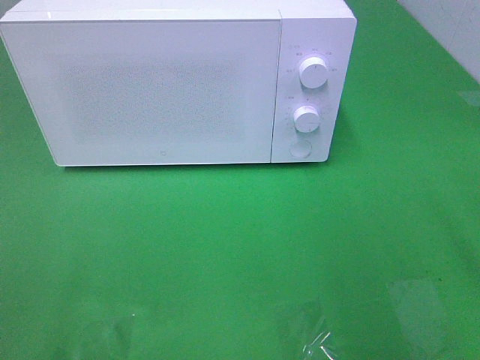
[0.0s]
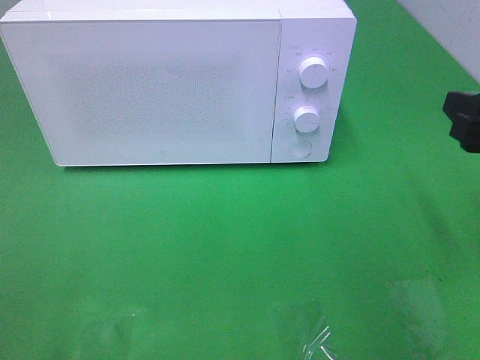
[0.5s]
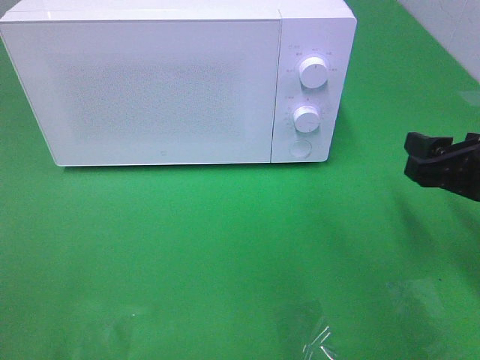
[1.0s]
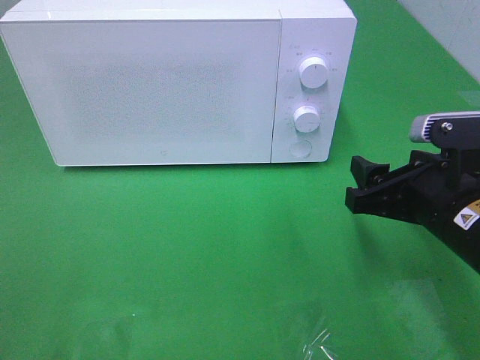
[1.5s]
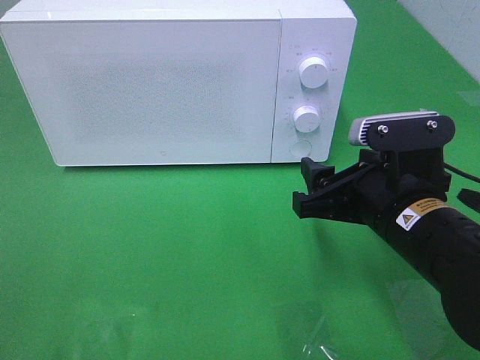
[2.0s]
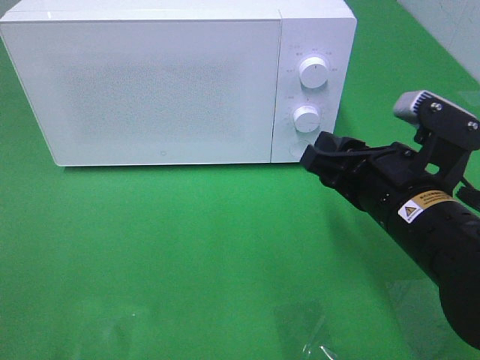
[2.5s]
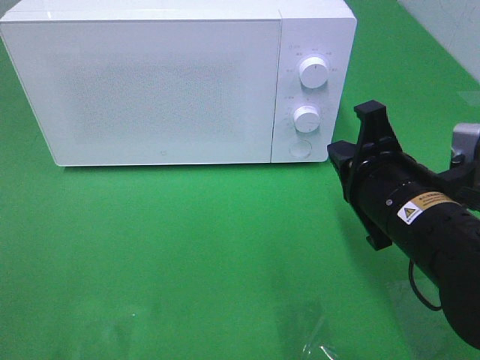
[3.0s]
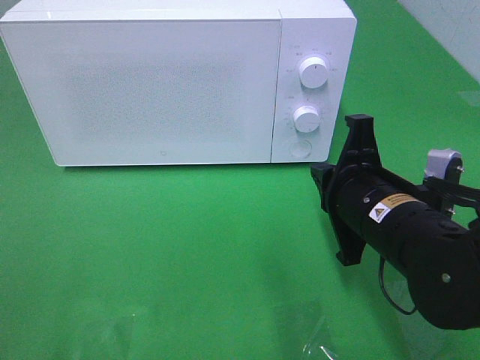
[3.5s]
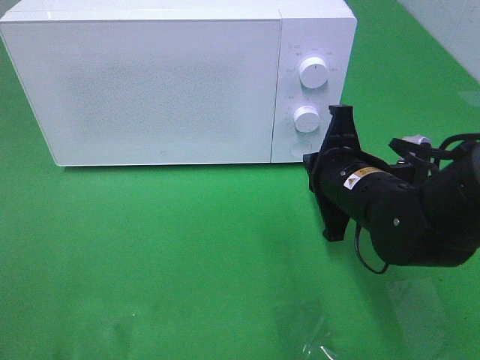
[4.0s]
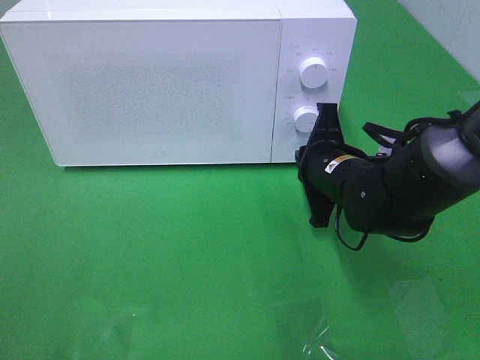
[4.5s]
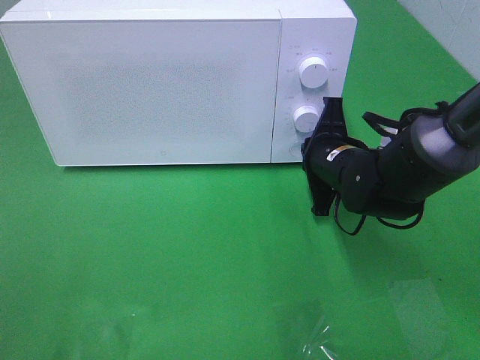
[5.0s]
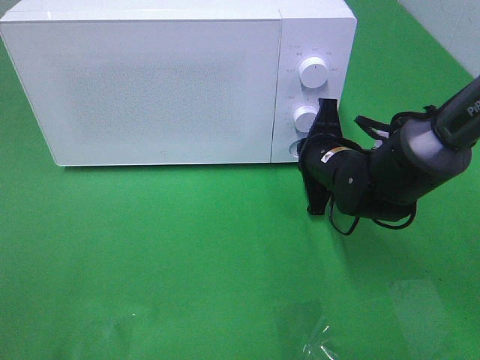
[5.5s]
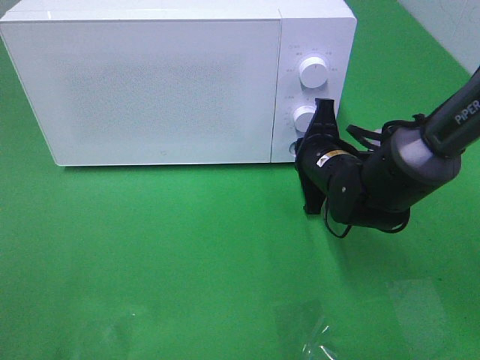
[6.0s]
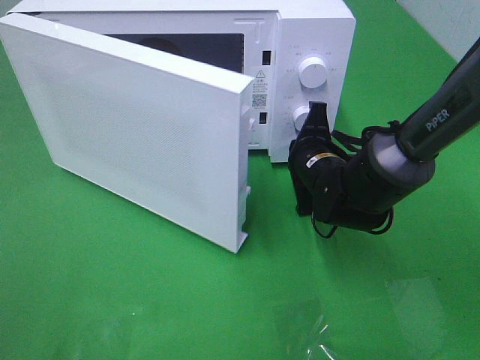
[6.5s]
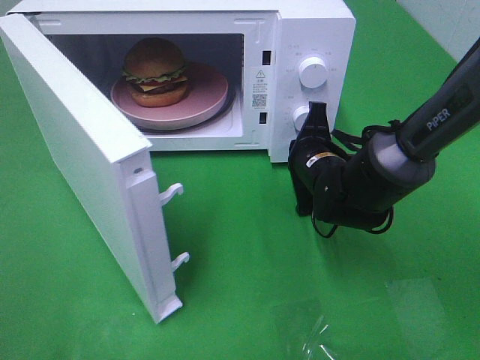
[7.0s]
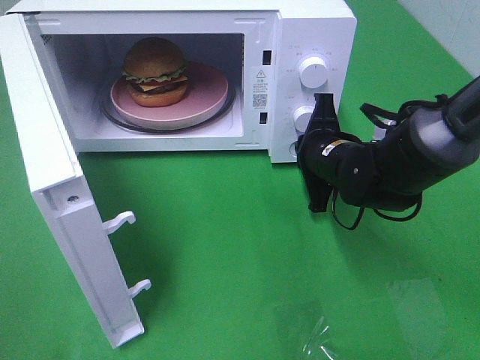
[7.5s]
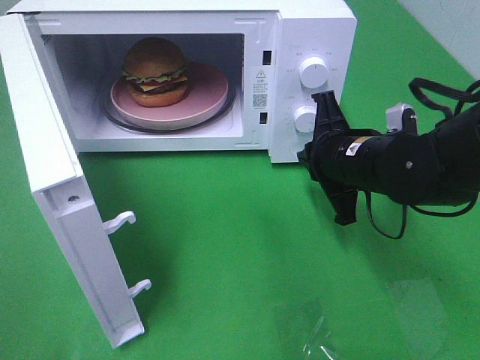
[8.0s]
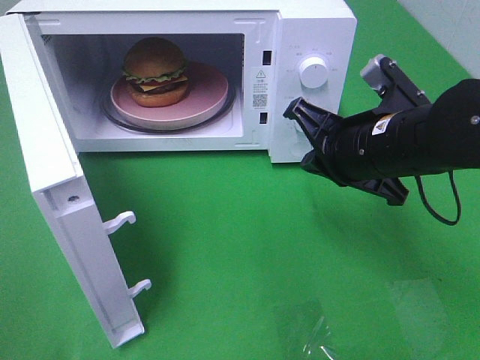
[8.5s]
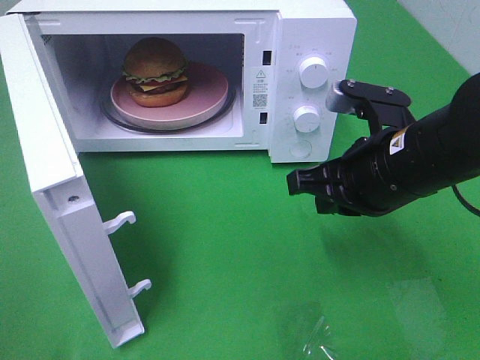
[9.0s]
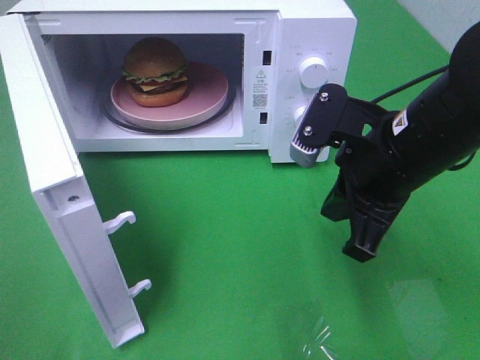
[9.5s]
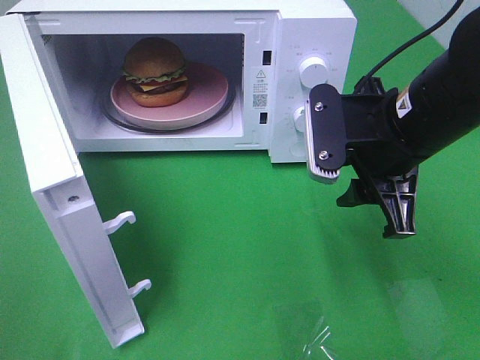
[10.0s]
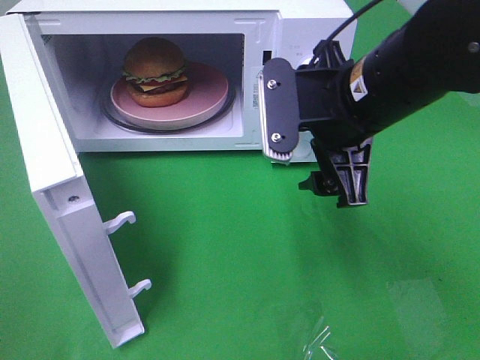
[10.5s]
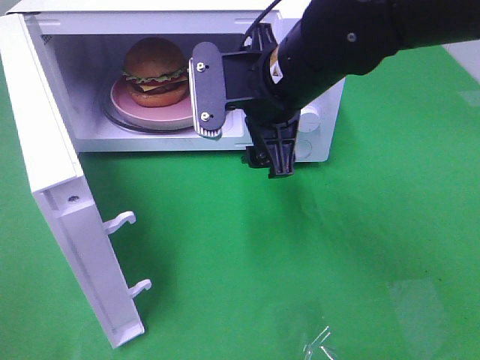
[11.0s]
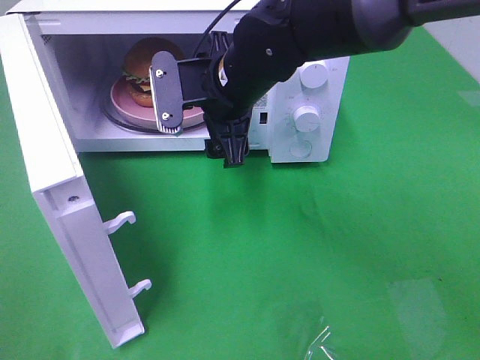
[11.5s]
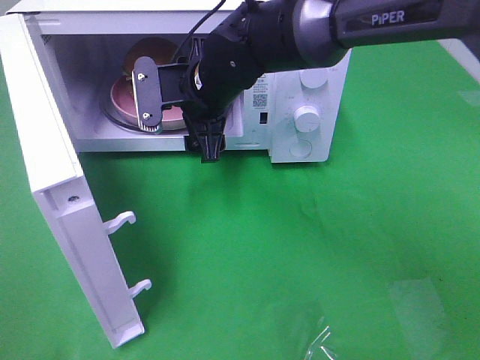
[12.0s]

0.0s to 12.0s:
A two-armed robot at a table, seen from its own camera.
Task of the whole recording: Heat the burger.
Step, 0.0s to 7.5s: Right hand: press the switch.
0.0s to 2.0s: The right gripper goes some 20 cm downward and to the left.
2.0s to 4.0s: The right gripper moves forward, approximately 5 cm, and closes.
4.0s to 6.0s: The right gripper shifts approximately 5 cm forward.
6.0s to 8.0s: The right gripper changes place by some 5 cm.
8.0s to 10.0s: The right gripper shifts approximately 10 cm upward, and opens its fingers.
10.0s to 12.0s: The right gripper shifts approximately 20 cm to the left and forward.

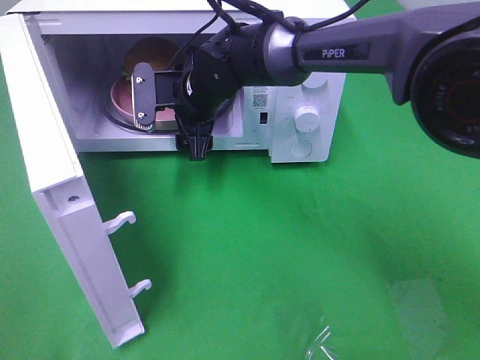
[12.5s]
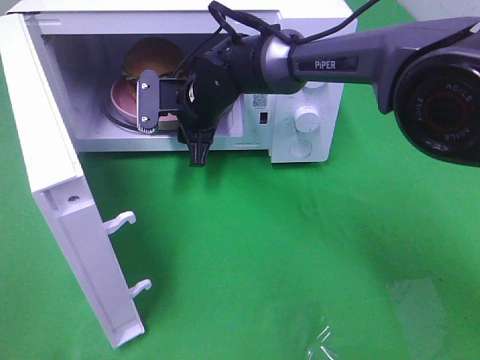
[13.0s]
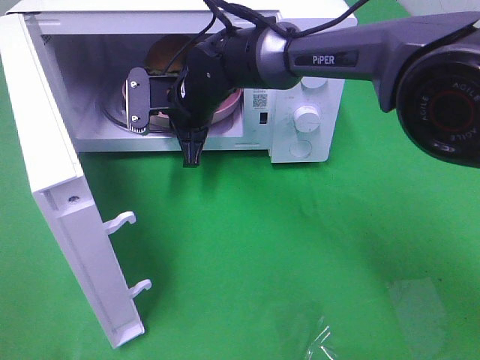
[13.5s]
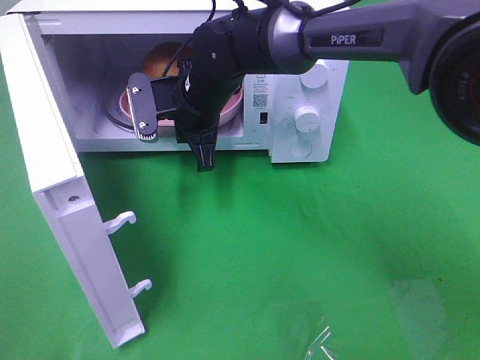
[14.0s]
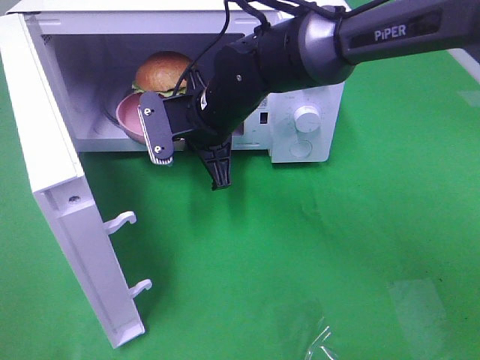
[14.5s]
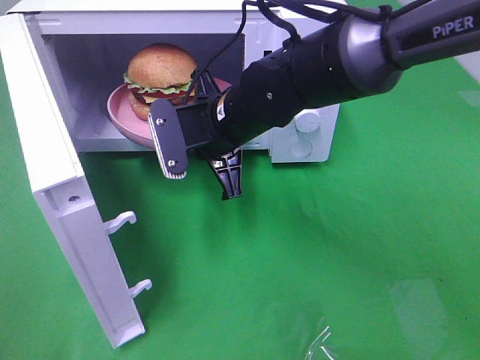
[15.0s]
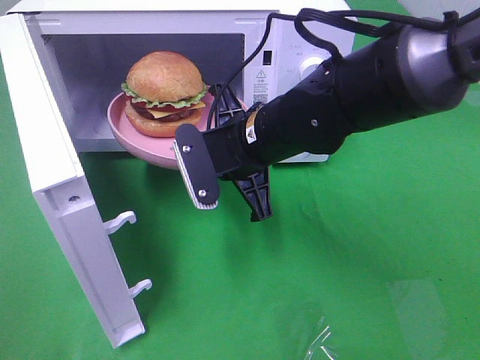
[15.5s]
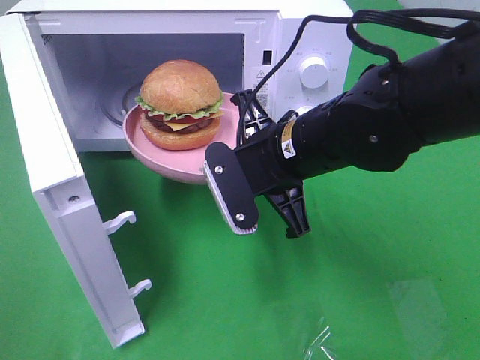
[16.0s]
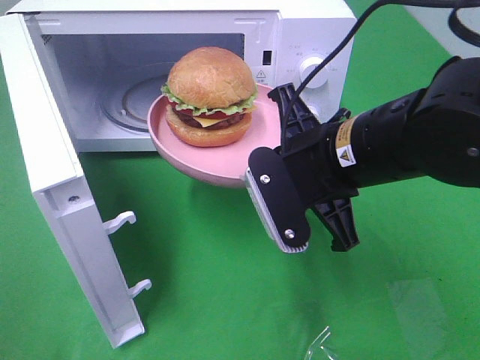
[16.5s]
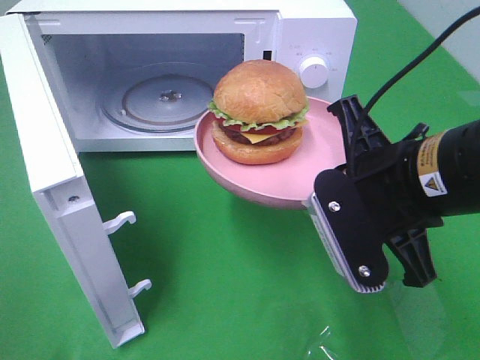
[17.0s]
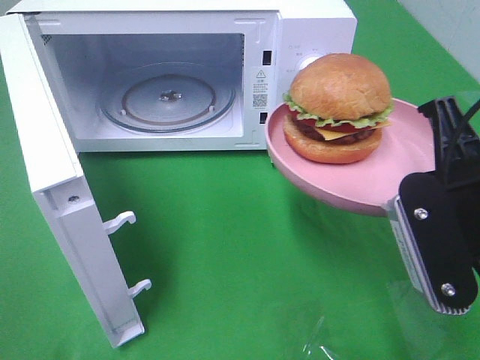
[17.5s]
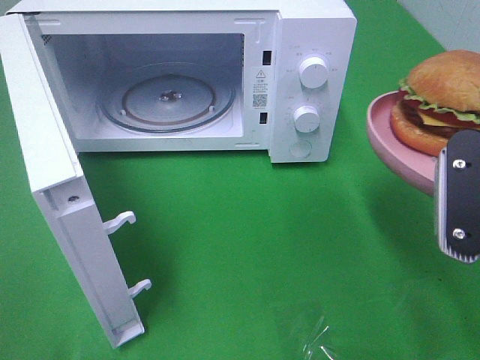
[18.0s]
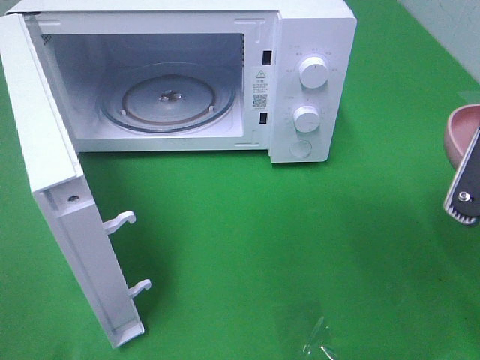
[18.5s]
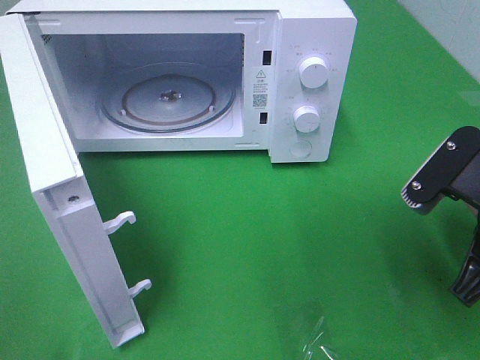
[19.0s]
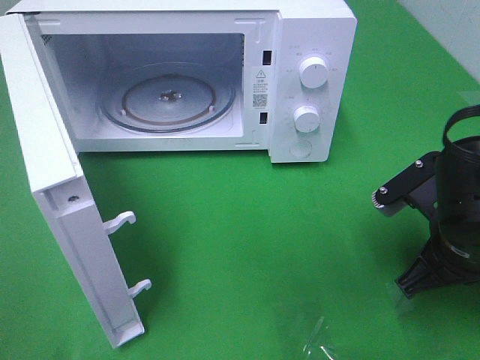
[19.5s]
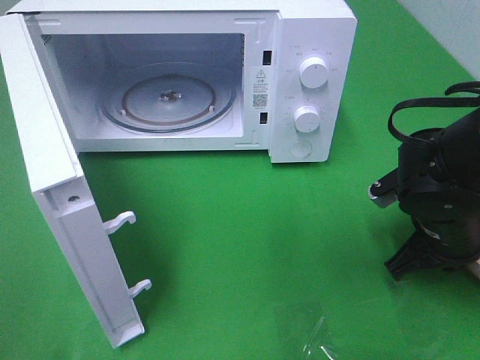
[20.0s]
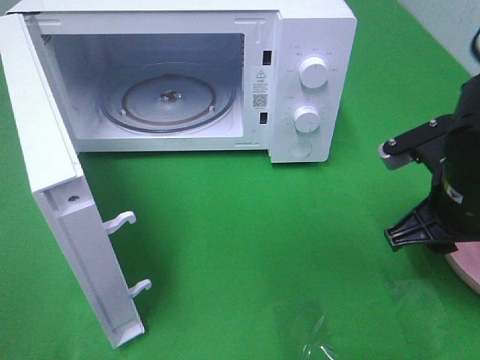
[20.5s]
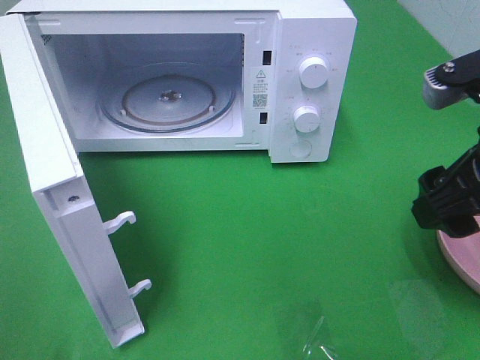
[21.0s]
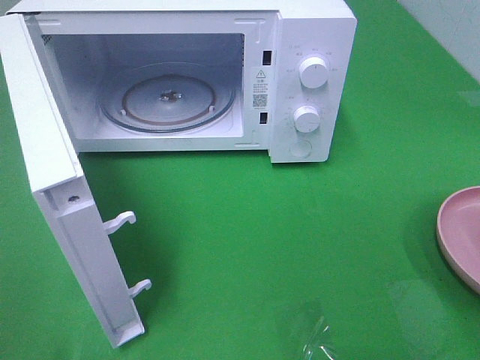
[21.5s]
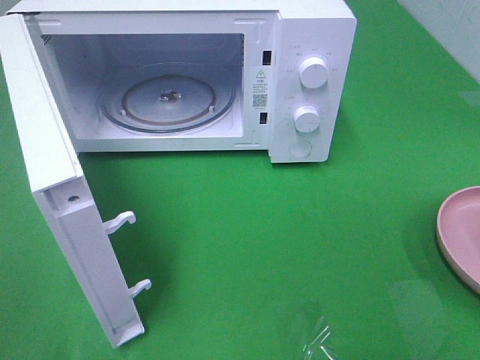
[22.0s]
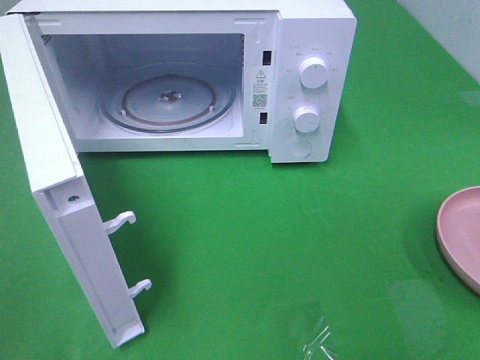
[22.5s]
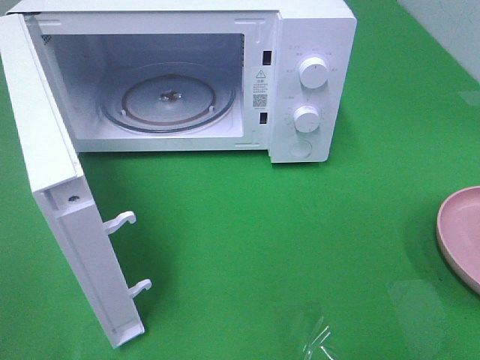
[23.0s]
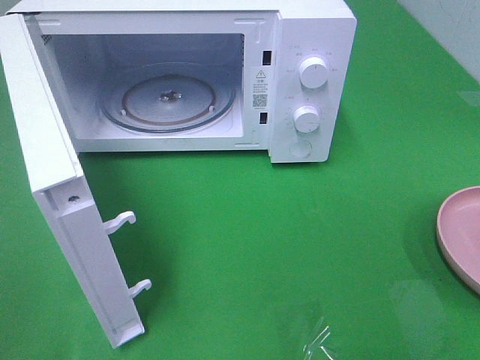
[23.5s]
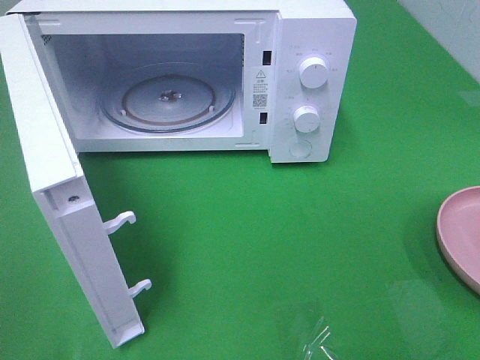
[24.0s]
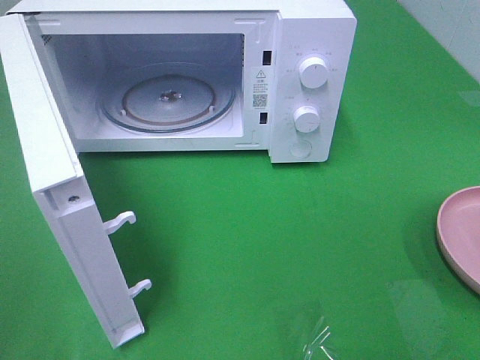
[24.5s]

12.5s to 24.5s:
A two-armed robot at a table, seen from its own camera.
Task of the whole recording: Heat the burger.
Step, 14.0s to 21.0s: Right hand: place the plate on the table.
12.5s to 14.5s: The right gripper travels backward by roughly 5 cm, and closes its fingers.
14.5s to 16.5s: The right gripper heads backward and to the right, covering some 20 cm.
16.5s to 18.5s: The right gripper heads to the right and backward, covering roughly 15 cm.
18.5s to 20.5s: The right gripper heads forward and downward, covering approximately 10 cm, and opens its fingers.
20.5s to 22.5s: The right gripper travels backward and upward by about 25 cm.

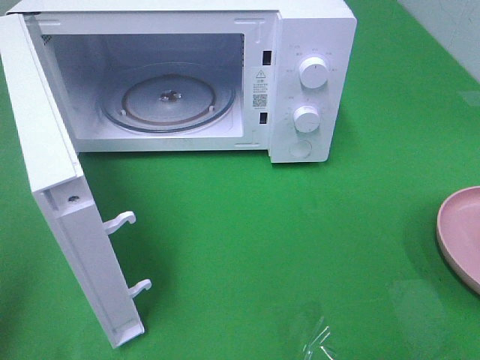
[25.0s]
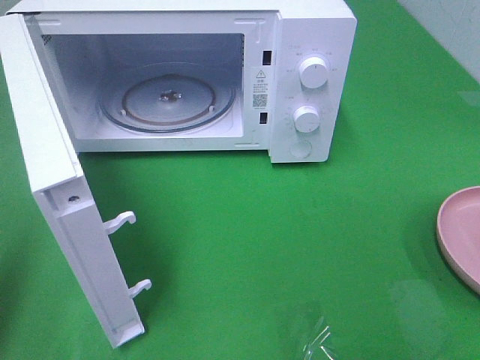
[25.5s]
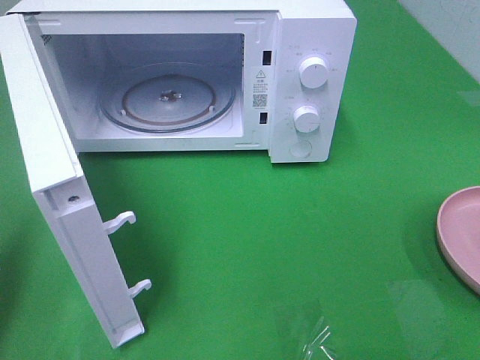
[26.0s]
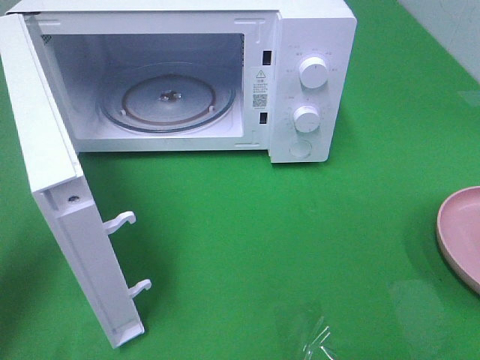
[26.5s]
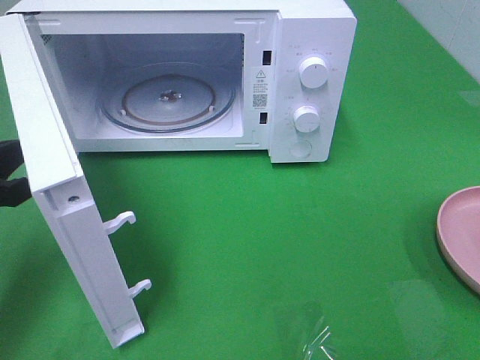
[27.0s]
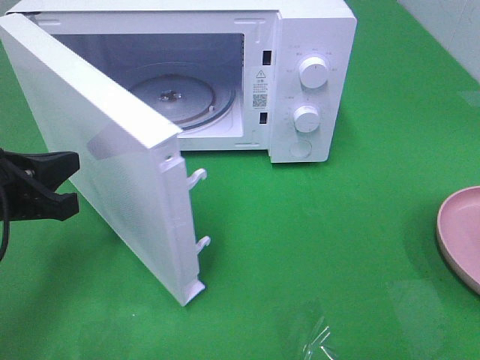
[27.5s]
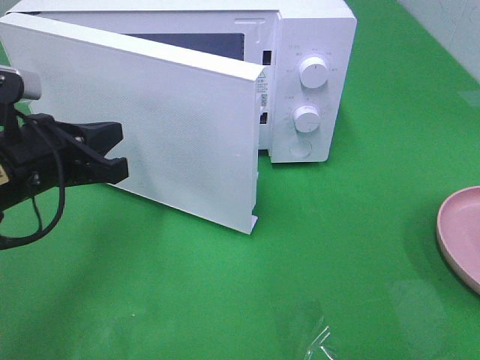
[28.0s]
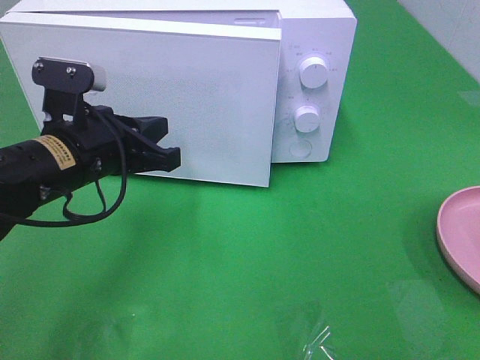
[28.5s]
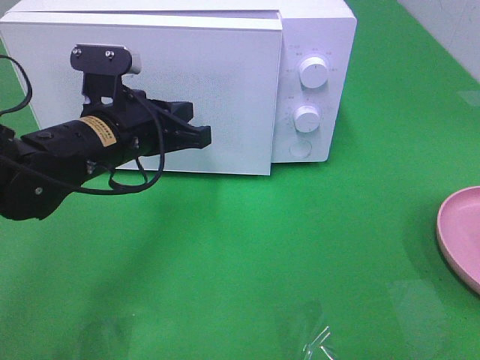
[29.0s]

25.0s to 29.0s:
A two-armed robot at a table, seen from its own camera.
Task of the whole recording: Heat the burger.
25.0s to 27.0s: The left gripper is displaced downward and forward by approximately 20 cm.
27.0s to 29.0s: The left gripper shifts approximately 20 cm to the right and forward.
